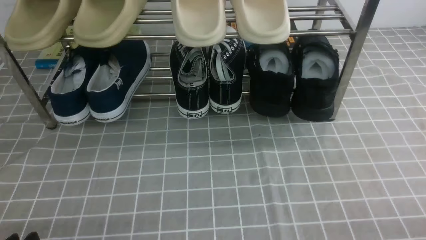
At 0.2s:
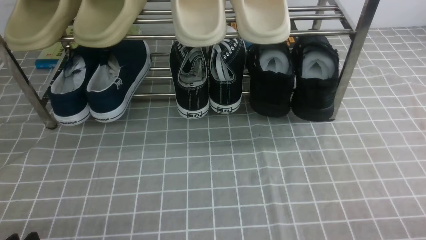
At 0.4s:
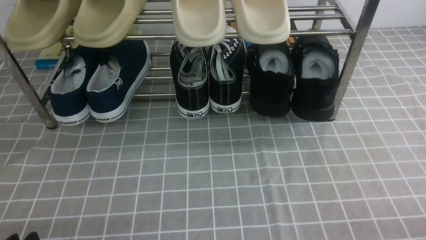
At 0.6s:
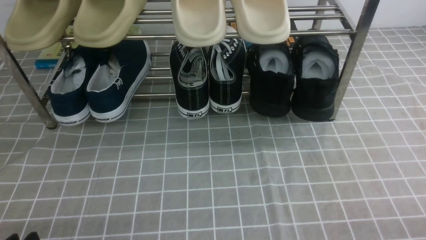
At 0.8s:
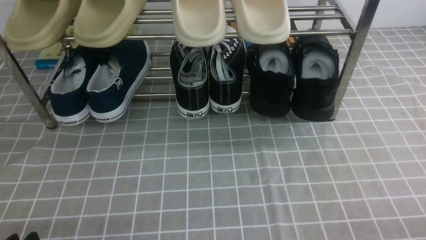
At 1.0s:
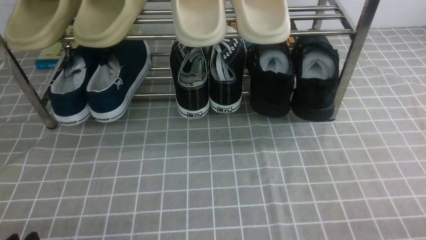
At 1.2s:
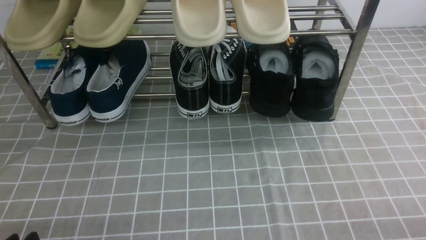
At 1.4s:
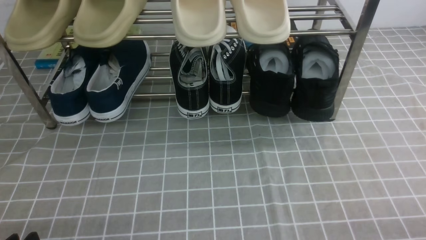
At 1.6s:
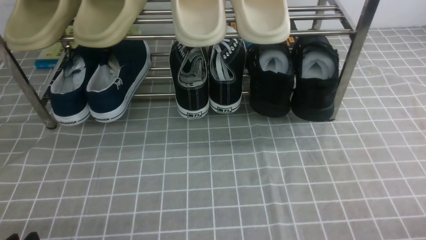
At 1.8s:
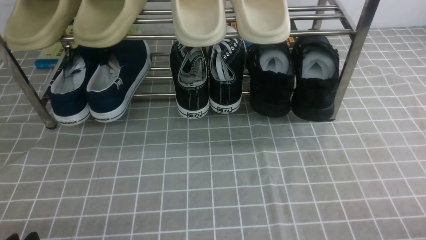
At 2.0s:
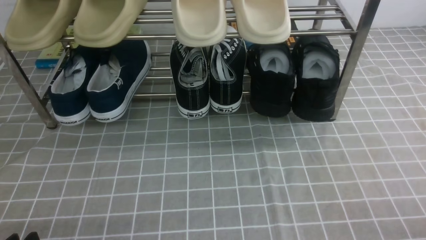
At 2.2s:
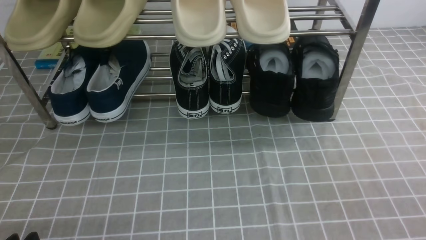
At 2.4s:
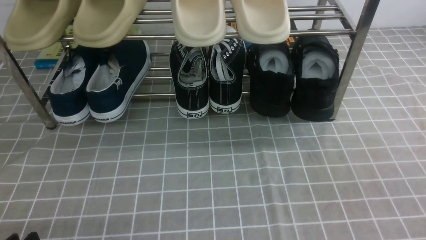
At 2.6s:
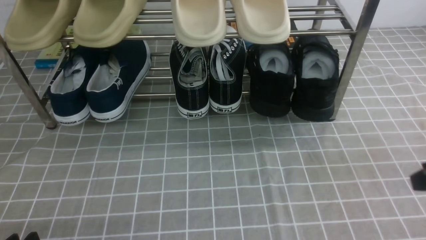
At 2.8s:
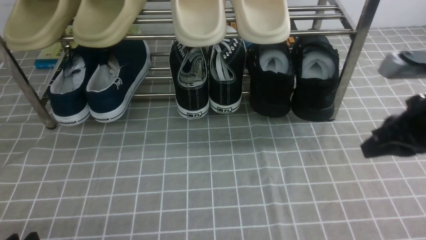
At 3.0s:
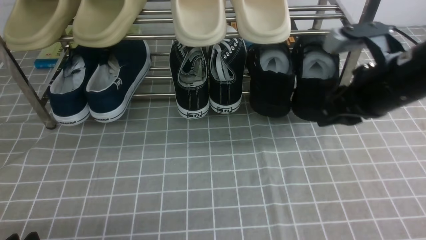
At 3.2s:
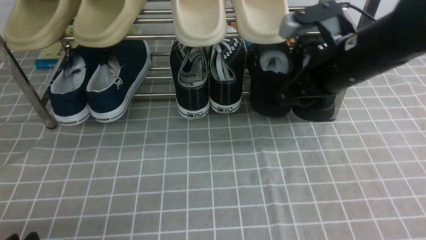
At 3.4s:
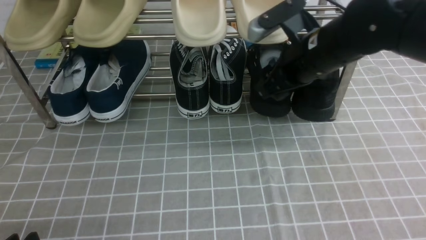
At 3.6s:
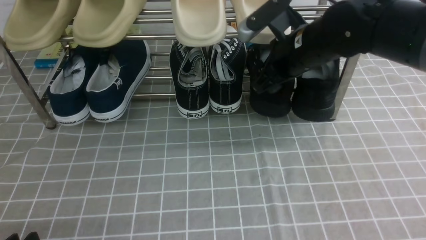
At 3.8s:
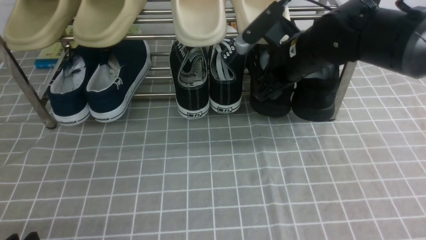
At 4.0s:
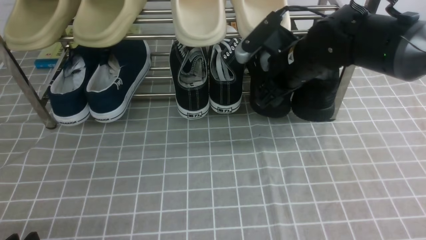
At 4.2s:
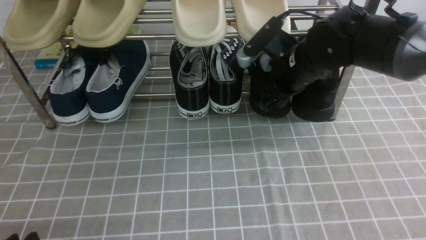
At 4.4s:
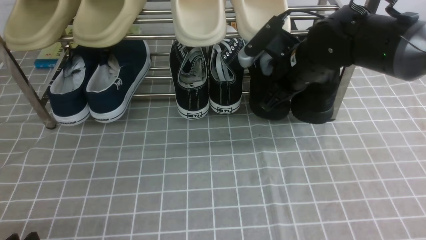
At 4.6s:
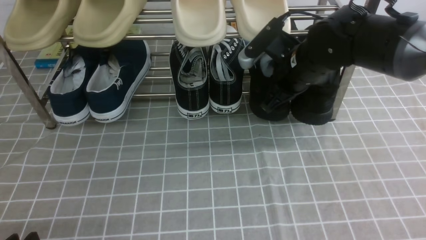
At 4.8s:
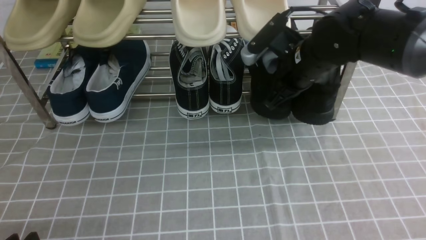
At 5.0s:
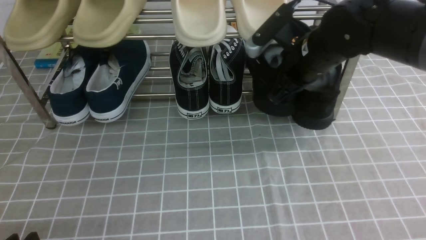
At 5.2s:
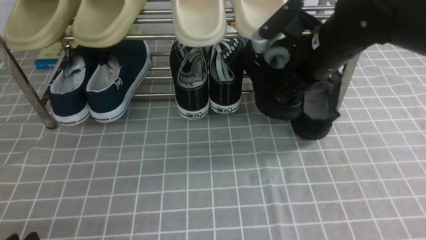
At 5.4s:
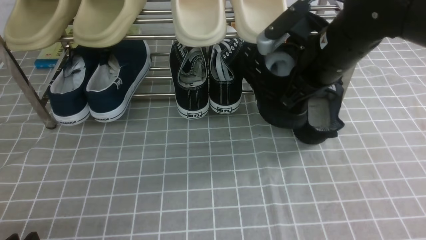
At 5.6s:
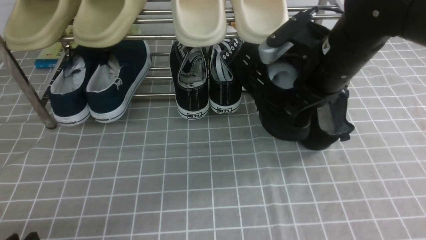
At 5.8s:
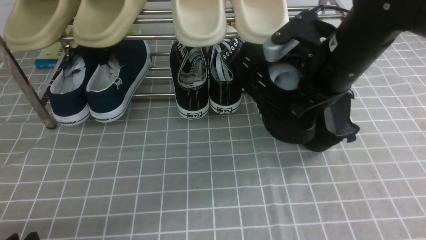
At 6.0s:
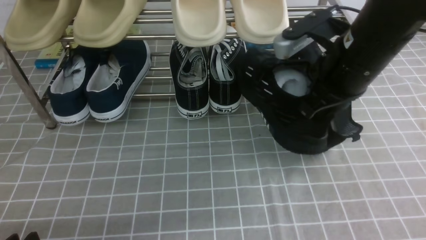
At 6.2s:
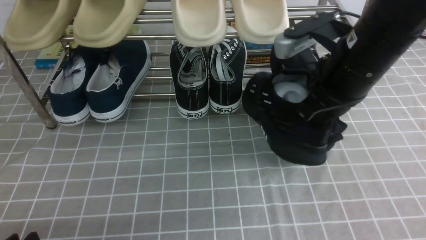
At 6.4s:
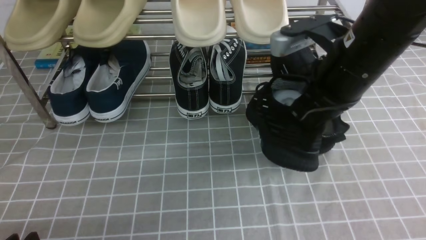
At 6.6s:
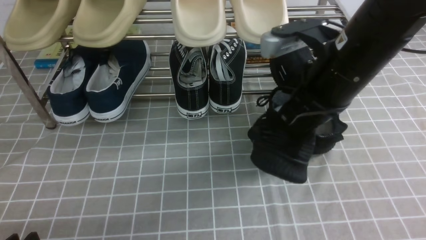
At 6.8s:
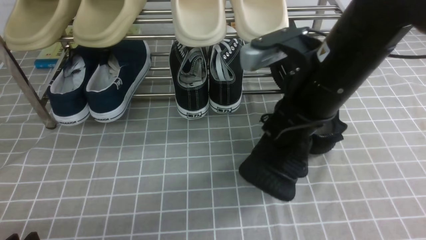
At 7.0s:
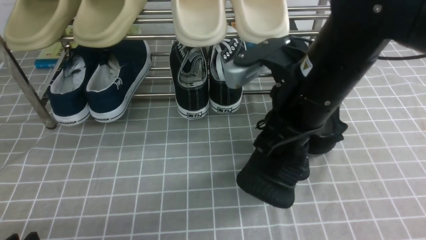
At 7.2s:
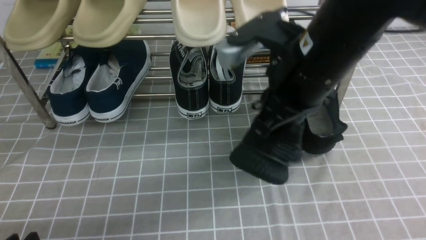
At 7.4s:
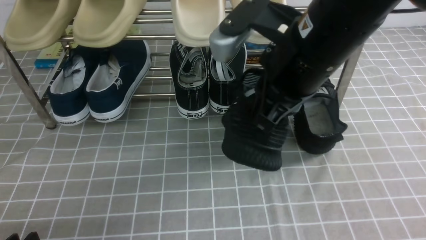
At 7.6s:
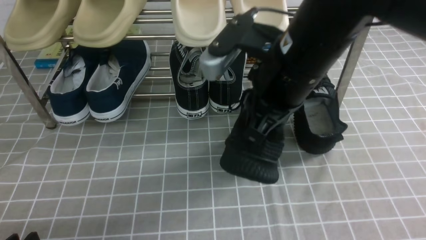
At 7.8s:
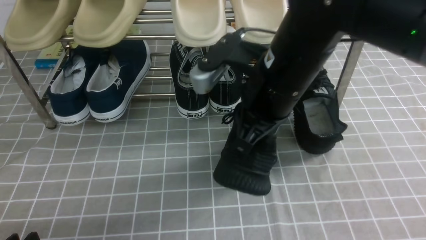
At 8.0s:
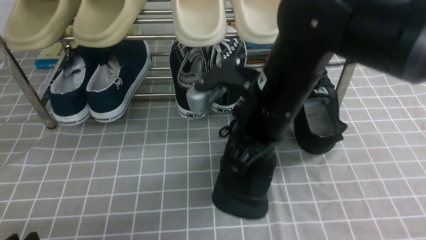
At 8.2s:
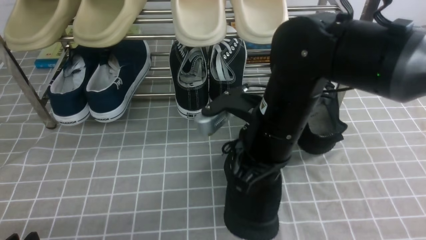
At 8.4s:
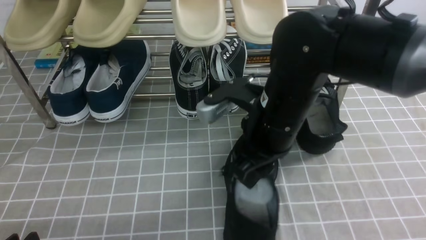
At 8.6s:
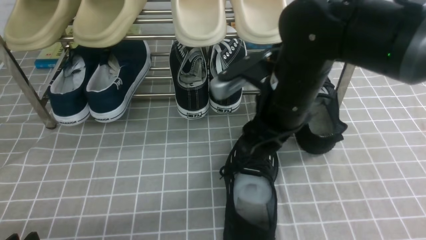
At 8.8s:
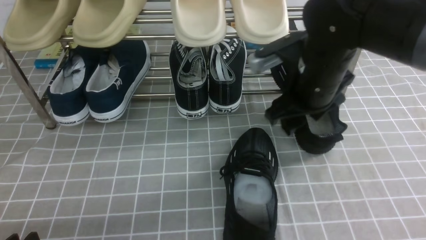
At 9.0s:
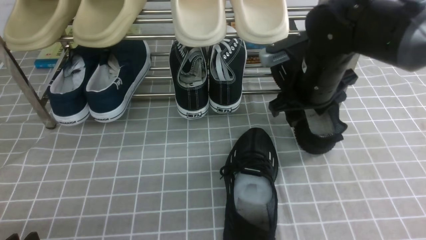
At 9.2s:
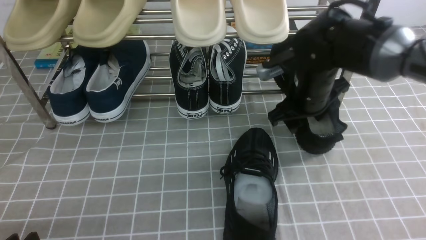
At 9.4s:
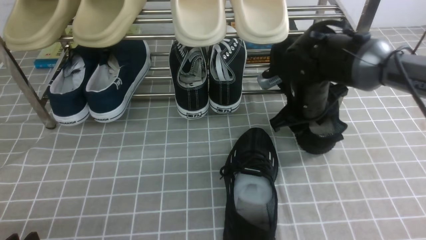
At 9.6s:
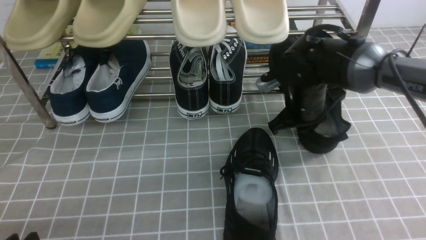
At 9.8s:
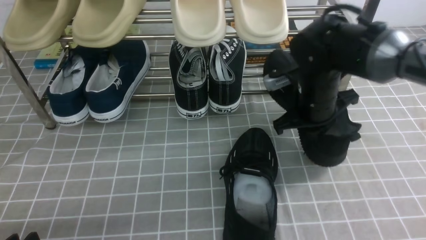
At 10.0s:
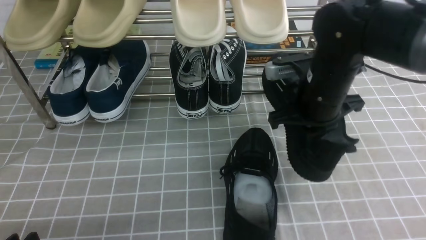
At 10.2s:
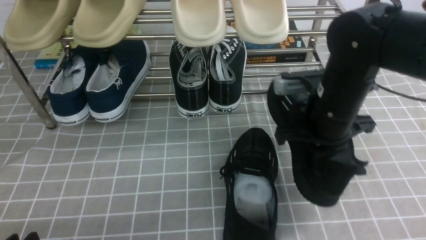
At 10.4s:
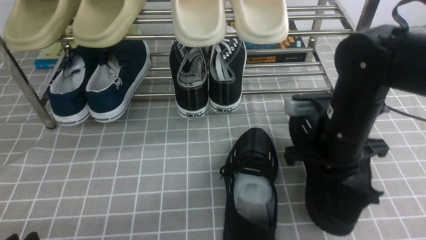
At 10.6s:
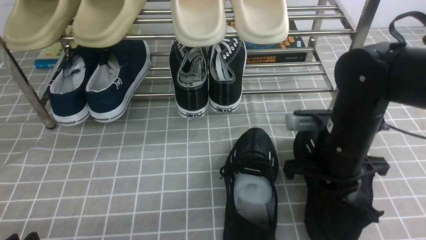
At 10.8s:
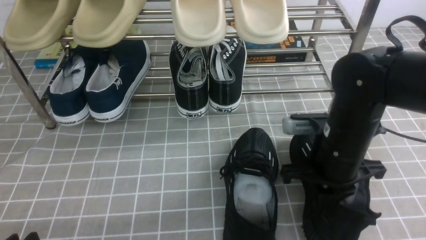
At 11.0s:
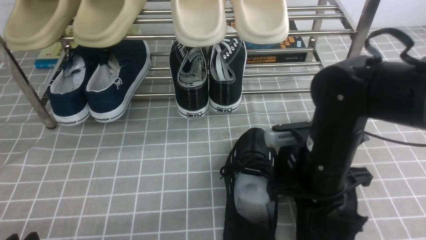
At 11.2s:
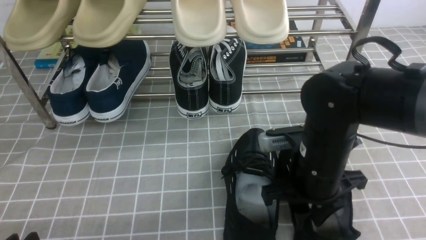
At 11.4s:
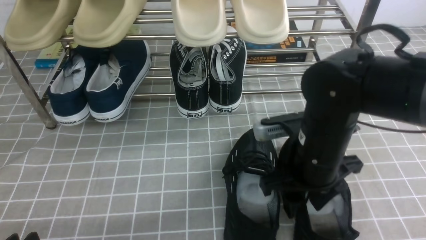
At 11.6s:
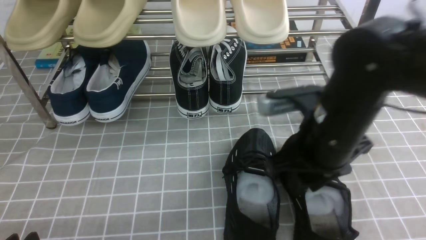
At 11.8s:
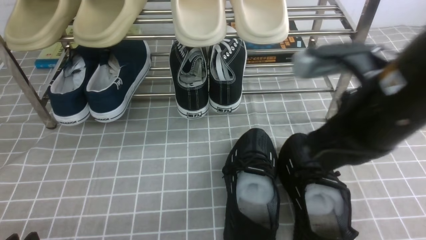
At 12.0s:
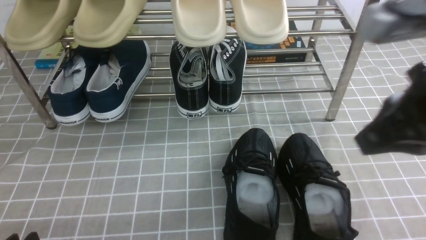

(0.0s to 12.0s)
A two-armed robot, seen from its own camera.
Step, 0.0s - 4.6s: use the right arm to clamp a shoe on the right side of the shoe rack.
Step, 4.8s - 8.4s: use the right arm to take out the clamped shoe from the shoe rack and put it down.
Step, 8.6s - 9.6s: use the right arm to clamp a shoe on the right side of the shoe rack.
Step, 9.8s - 11.6s: use the right arm to take out the clamped shoe from the shoe rack and put it down.
1.6s - 3.0s: The right gripper moves forward, upward and to the left, approximately 30 cm, and closes, then opens again.
3.0s - 4.4s: The right gripper is displaced forward, to the left and downward by some 15 cm, and opens, then closes again.
4.4s - 6.0s: The right gripper moves backward and upward, approximately 10 cm.
6.0s - 7.6s: The right gripper moves to the left, roughly 10 cm.
7.6s - 9.0s: The right gripper goes about 15 cm forward, downward and to the right, and opens.
9.0s - 10.4s: The right gripper moves backward, about 5 cm, and closes its fingers.
10.4s - 12.0s: The right gripper goes roughly 20 cm upward and backward, and opens, then closes again.

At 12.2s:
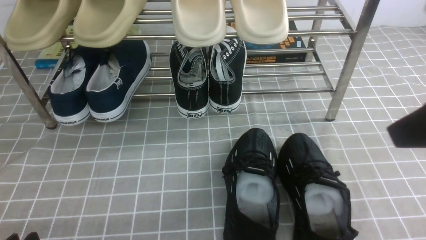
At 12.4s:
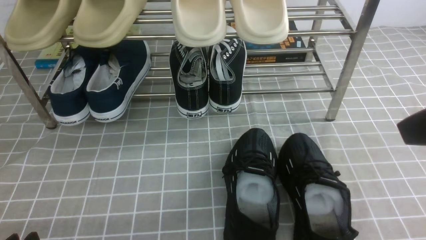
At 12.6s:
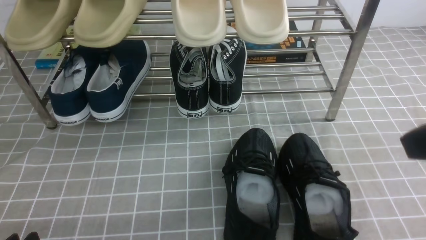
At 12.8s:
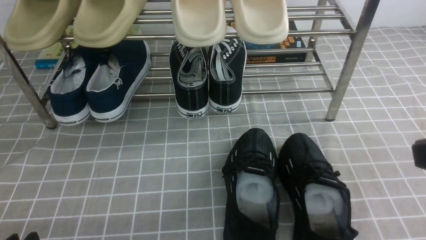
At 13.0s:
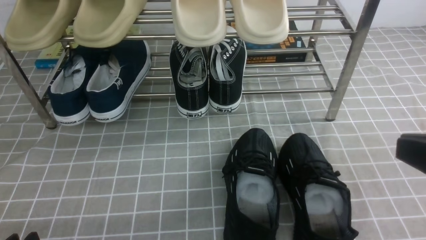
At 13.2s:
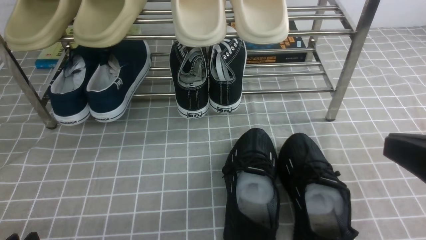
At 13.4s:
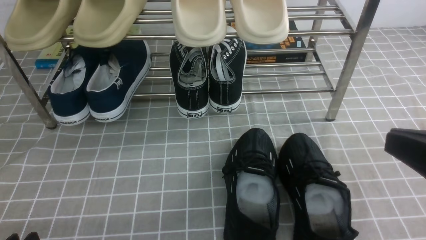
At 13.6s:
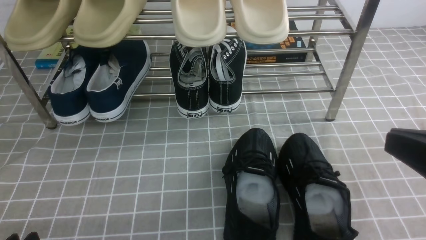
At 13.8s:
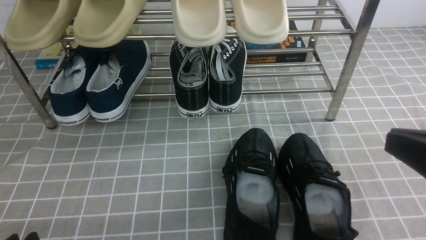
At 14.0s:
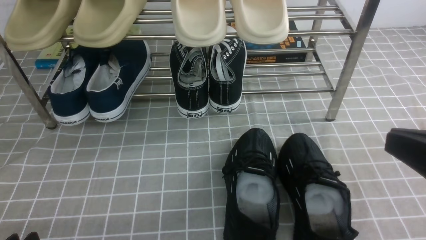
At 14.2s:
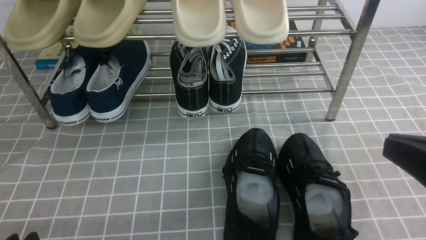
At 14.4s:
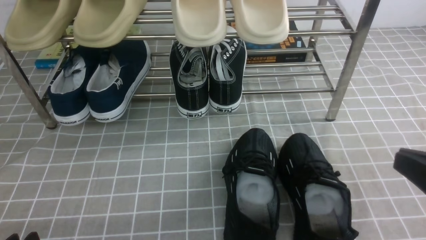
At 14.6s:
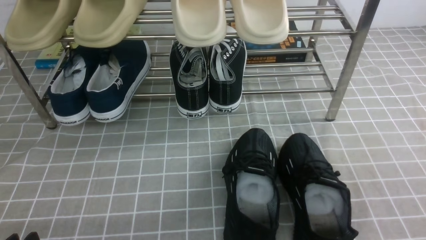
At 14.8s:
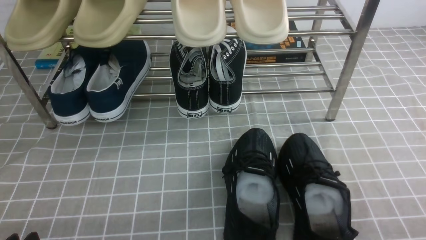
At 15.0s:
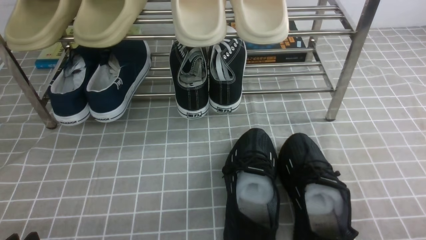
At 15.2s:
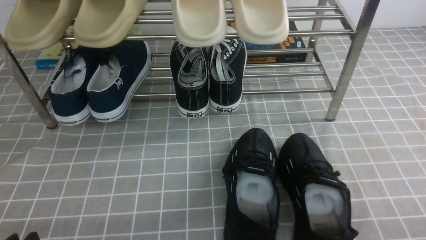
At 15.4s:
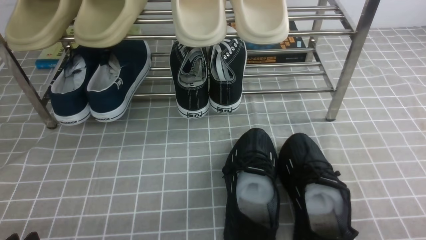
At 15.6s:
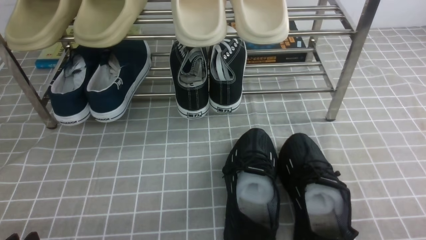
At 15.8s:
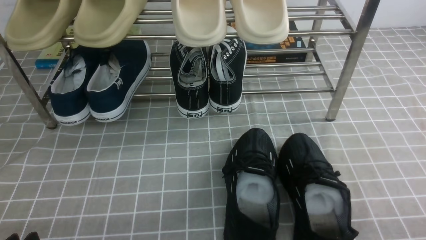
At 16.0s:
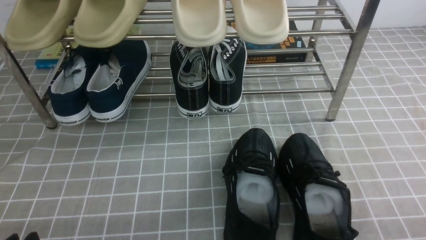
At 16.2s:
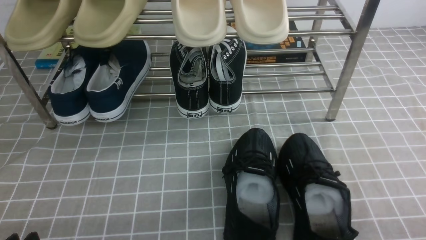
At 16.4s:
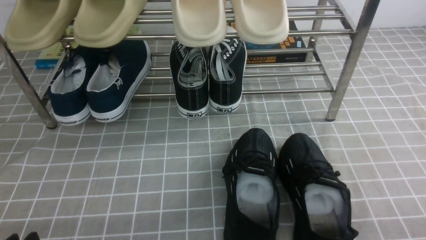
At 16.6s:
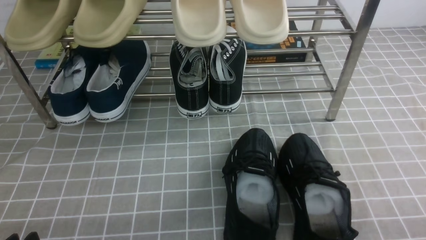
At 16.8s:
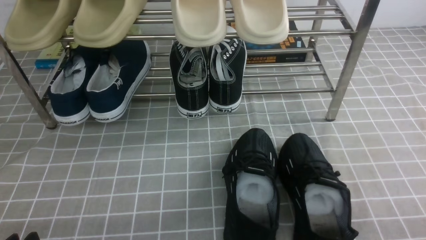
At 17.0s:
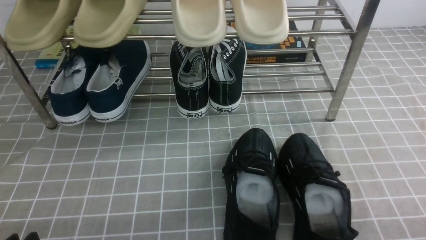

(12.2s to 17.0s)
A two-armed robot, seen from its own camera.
12.2s - 13.8s: The right gripper shifts roughly 10 cm downward.
13.8s - 15.4s: The right gripper heads downward and to the right, covering roughly 20 cm.
15.4s - 17.0s: Neither gripper changes place.
